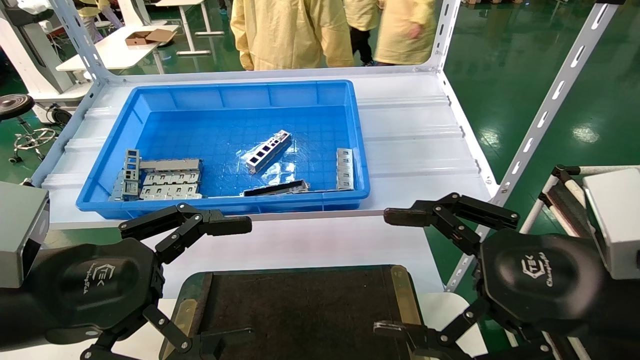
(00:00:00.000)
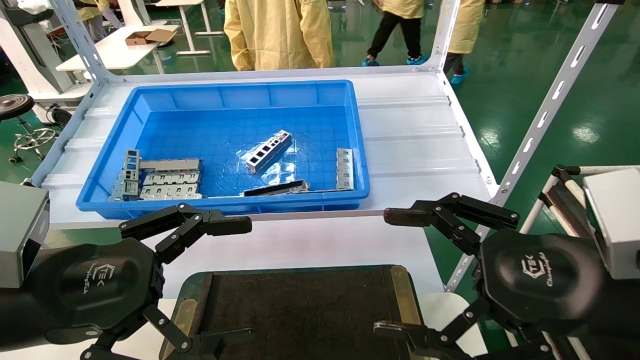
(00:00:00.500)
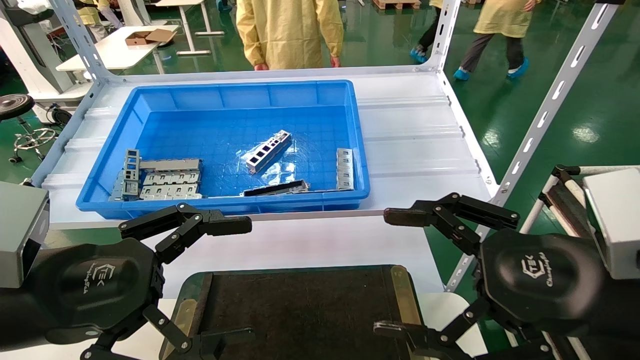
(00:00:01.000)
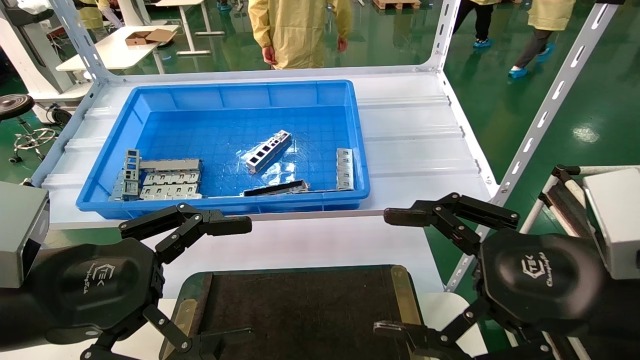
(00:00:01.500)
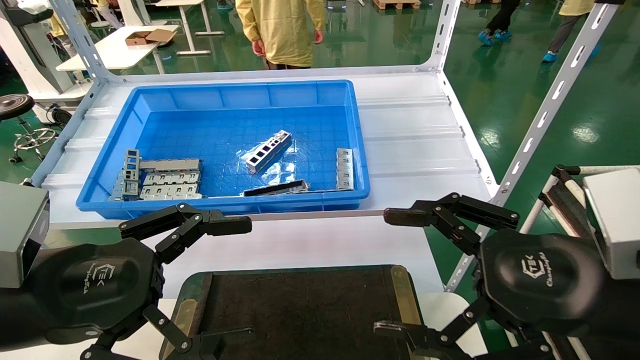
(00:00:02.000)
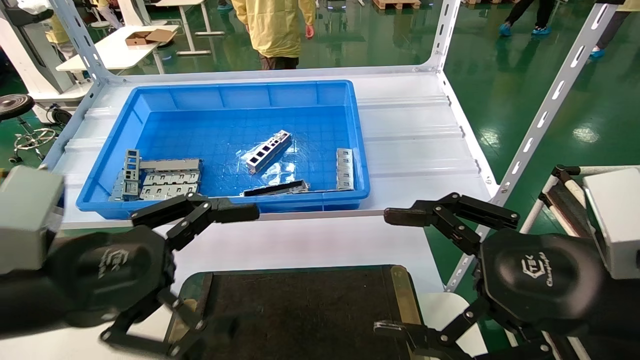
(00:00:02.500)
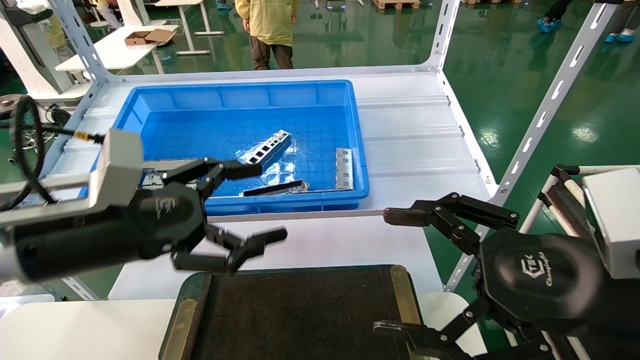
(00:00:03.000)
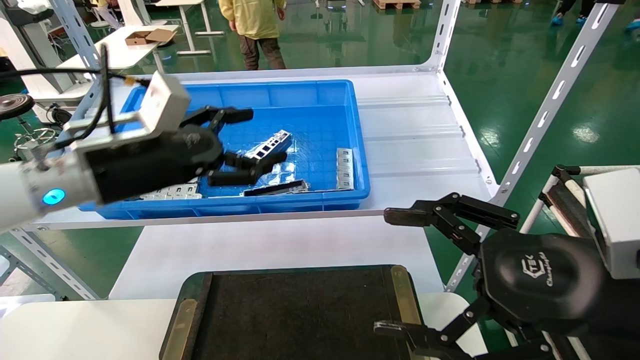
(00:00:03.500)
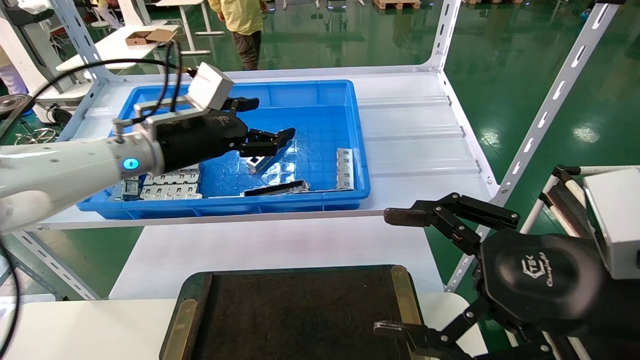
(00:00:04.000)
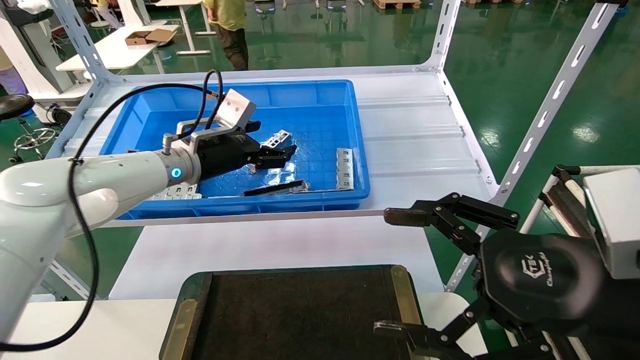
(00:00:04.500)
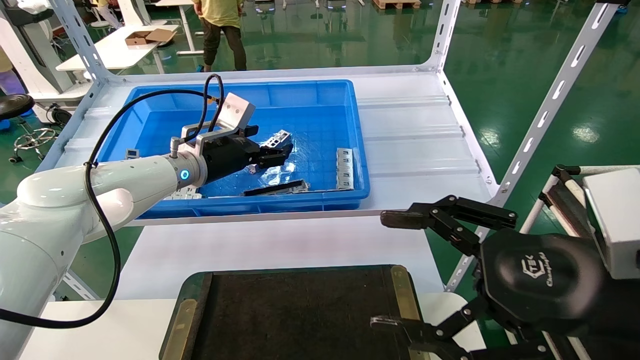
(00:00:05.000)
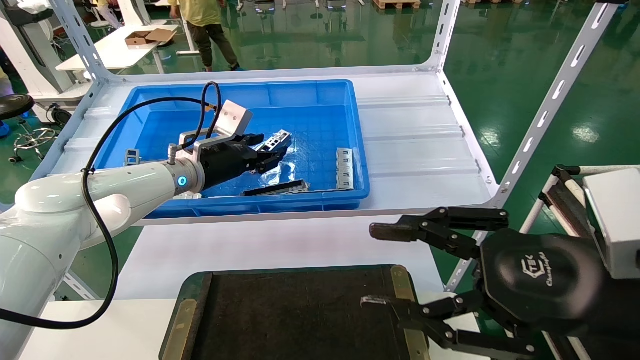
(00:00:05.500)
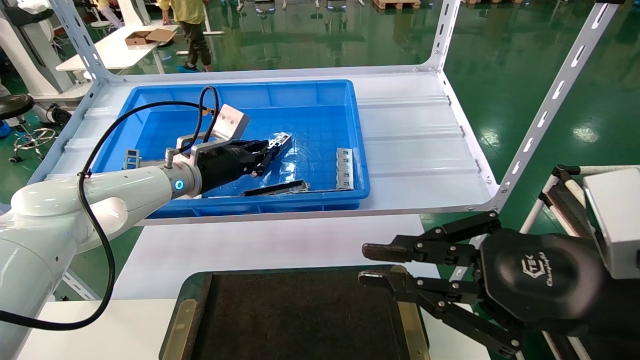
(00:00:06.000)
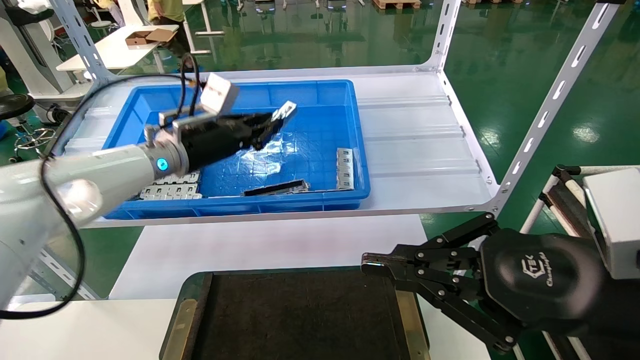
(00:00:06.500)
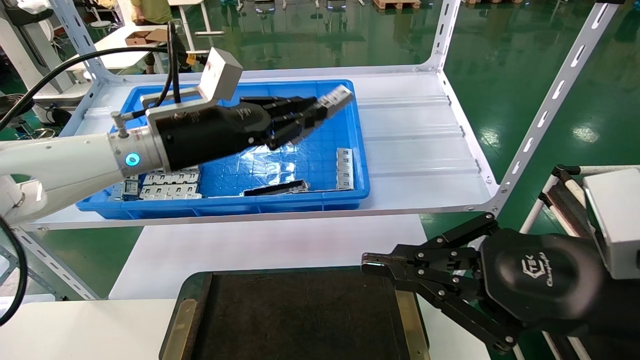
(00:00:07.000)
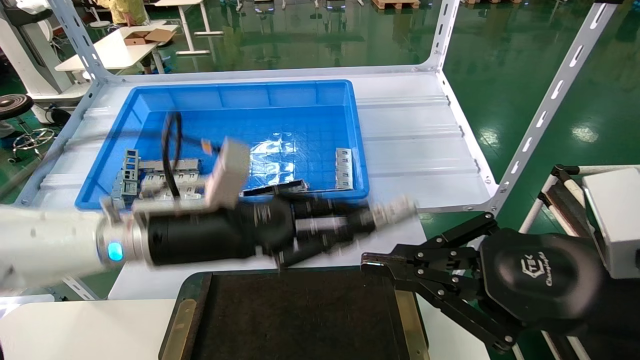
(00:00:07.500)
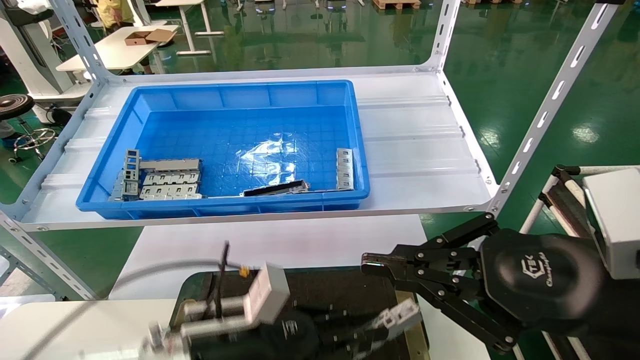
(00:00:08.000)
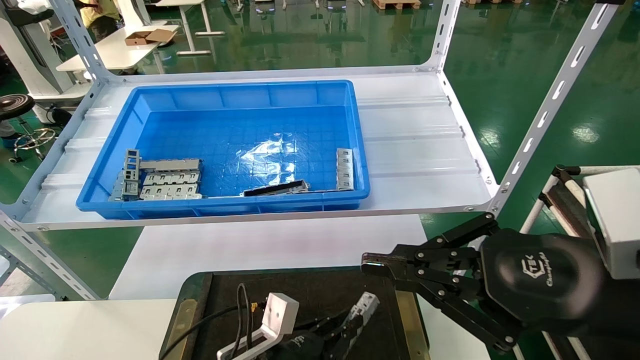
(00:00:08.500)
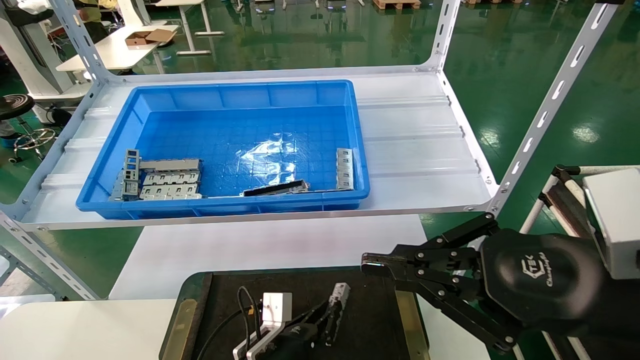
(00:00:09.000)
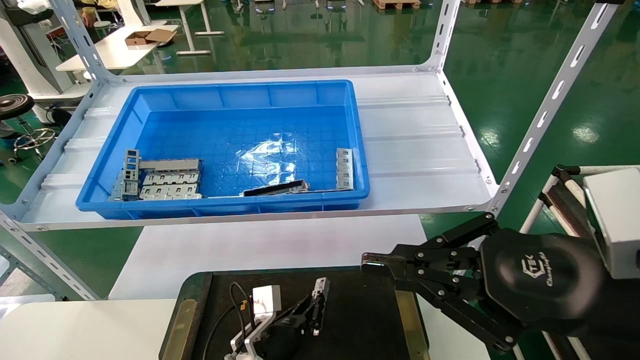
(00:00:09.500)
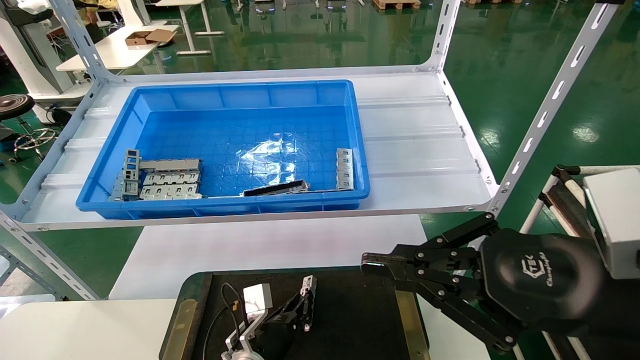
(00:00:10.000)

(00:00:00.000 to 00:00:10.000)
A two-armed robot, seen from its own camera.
Task of the whole recording: Grasp the part with one hand and place it on the black container.
Step, 00:00:02.500 - 00:00:05.500: Pick up the front USB bracket from the feeding area.
00:00:00.000 - 00:00:02.000: Neither gripper changes place.
00:00:02.000 - 00:00:04.000: The left gripper travels forward by some 25 cm.
00:00:04.000 - 00:00:06.000: The left gripper travels forward and downward by roughly 10 cm, and closes up; the right gripper closes its fingers.
00:00:06.000 - 00:00:08.000: The left gripper heads backward and downward, covering roughly 25 cm.
00:00:08.000 - 00:00:10.000: The left gripper moves downward and forward, approximately 20 cm.

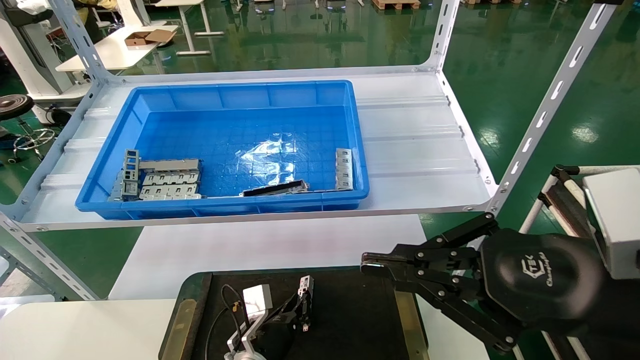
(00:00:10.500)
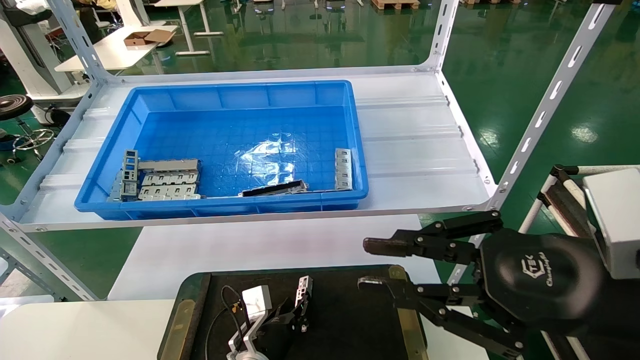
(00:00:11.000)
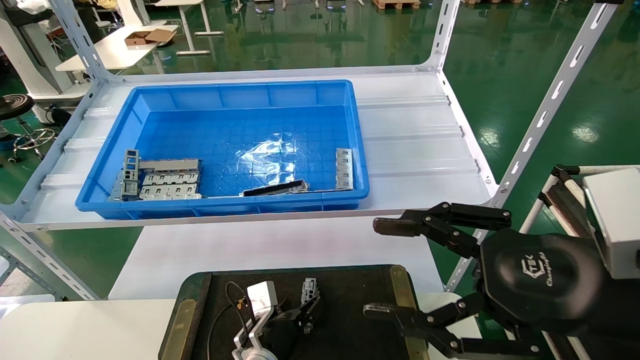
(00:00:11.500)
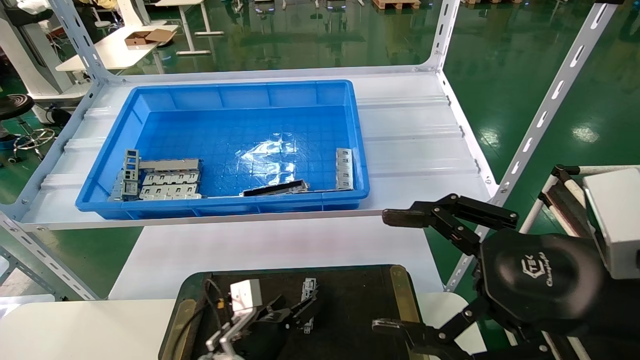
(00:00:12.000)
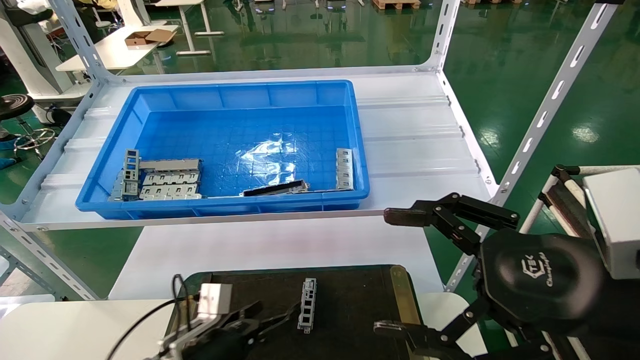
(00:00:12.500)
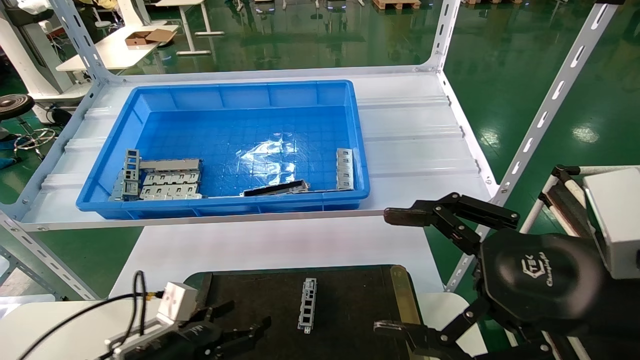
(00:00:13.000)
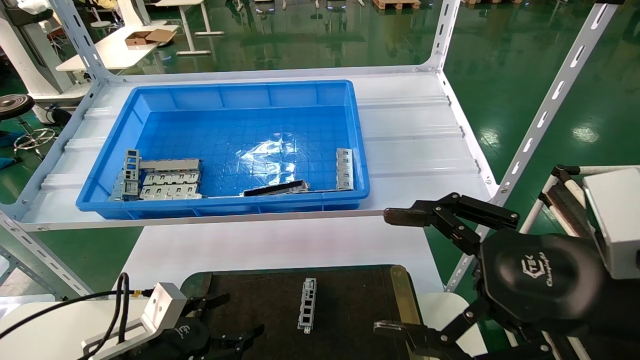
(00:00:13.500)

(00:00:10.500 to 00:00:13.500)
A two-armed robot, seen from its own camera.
Task of the whole recording: Grasp the part with one hand and place it on the black container.
00:00:10.500 - 00:00:12.000: The right gripper opens up. The left gripper ends up approximately 5 cm from where it was, and opens up.
00:00:12.000 - 00:00:13.500: The left gripper heads to the left and backward, covering some 15 cm.
